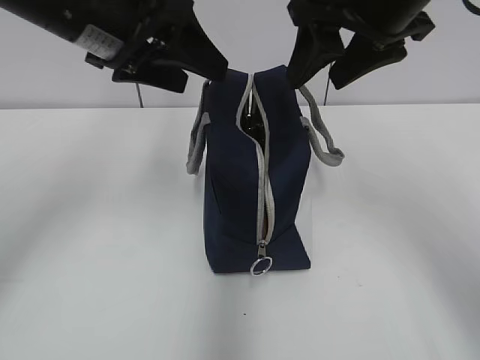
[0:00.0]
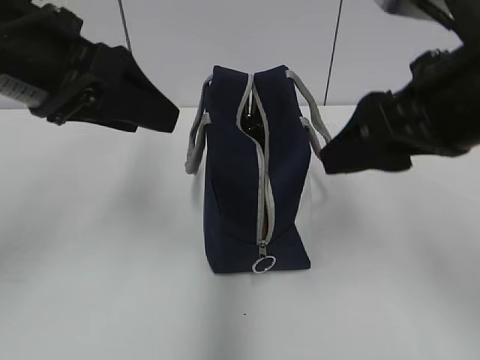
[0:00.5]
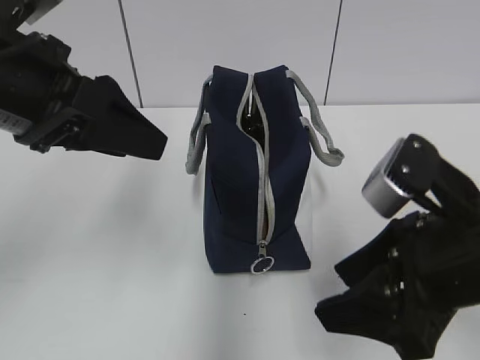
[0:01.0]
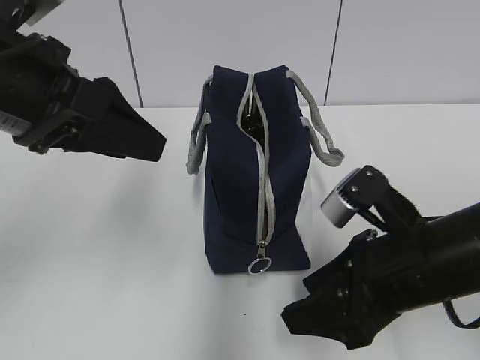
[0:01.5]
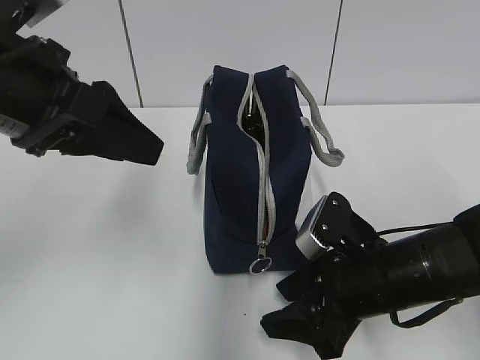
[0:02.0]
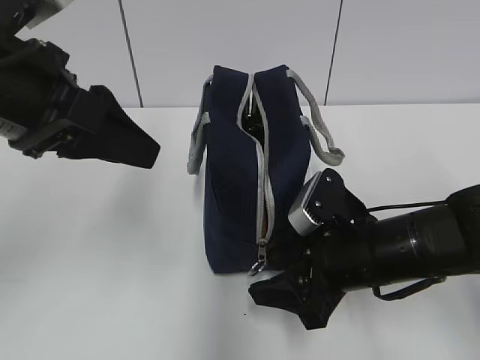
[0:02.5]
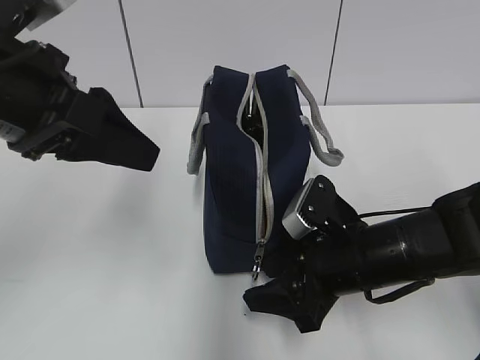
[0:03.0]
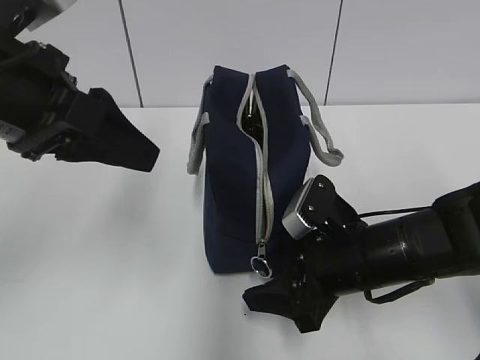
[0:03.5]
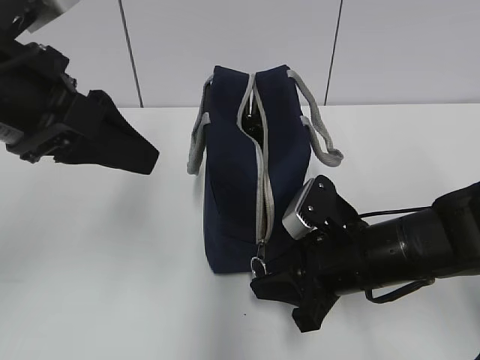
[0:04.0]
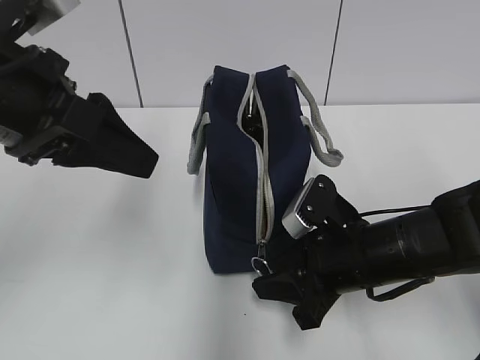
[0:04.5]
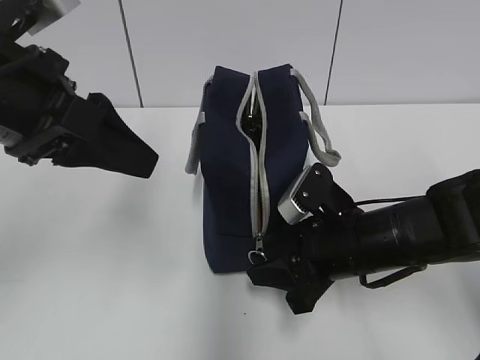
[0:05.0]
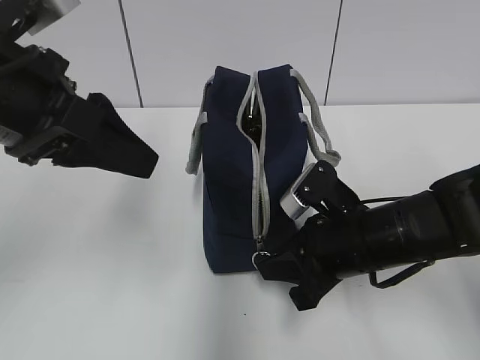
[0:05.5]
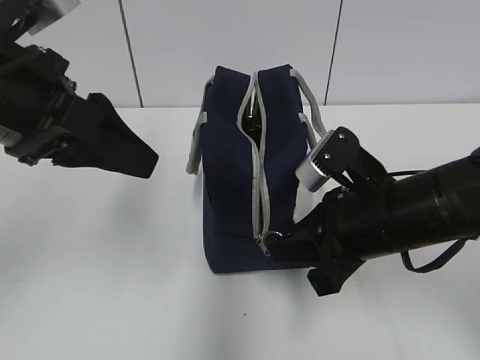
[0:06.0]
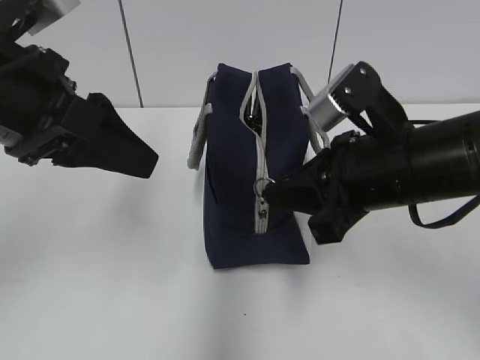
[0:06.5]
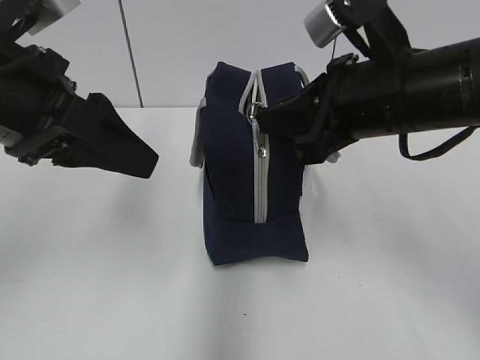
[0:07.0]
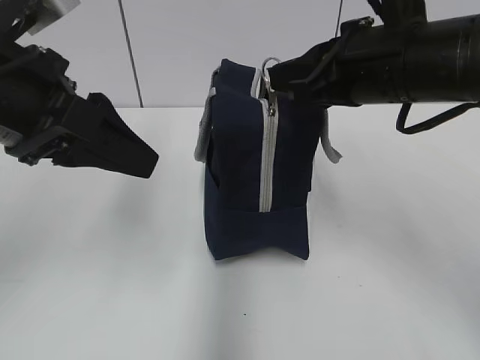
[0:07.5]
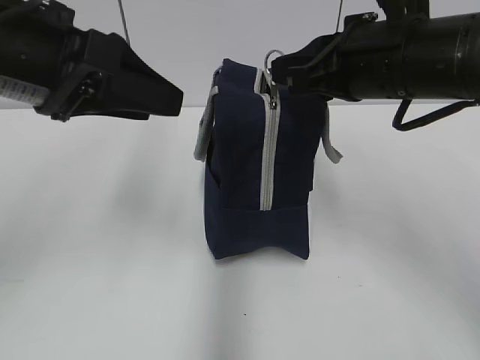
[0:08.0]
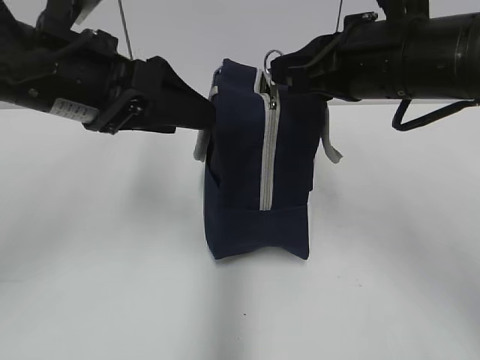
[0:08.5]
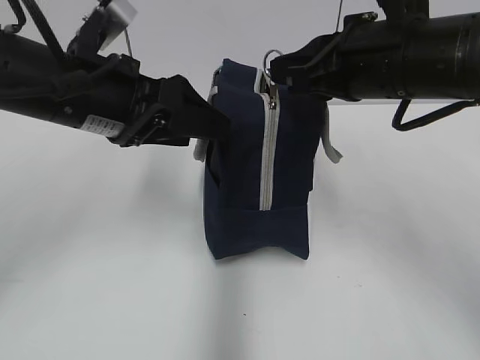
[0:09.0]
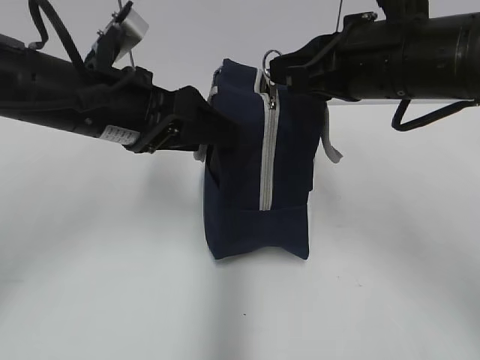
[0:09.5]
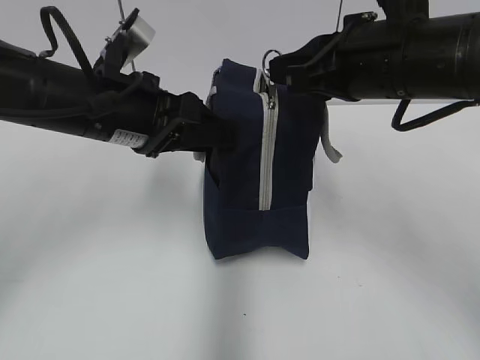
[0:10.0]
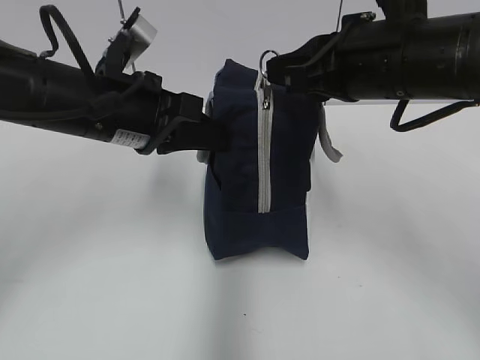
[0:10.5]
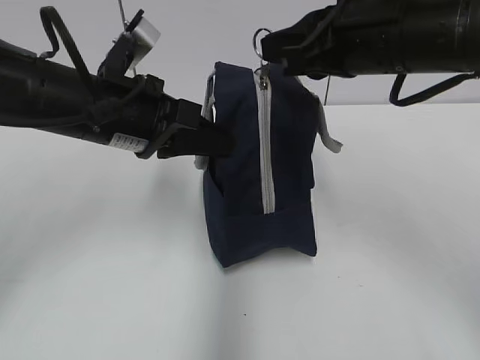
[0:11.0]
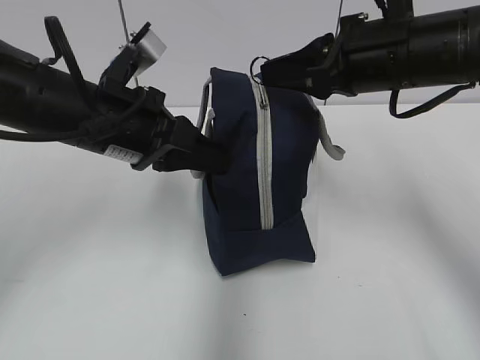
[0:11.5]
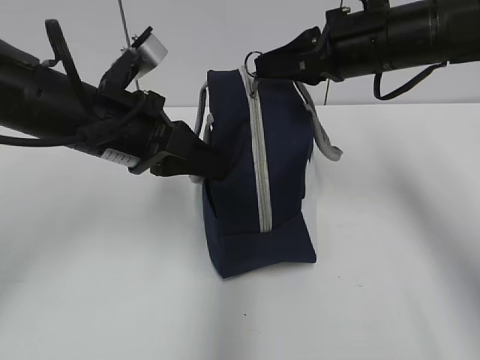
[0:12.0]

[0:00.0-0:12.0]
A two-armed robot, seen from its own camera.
0:00.0 to 0:02.0: The left gripper goes approximately 10 cm backward. The right gripper shifts approximately 25 cm downward and backward.
0:02.0 to 0:04.0: The right gripper closes up.
0:04.0 to 0:06.0: The right gripper moves upward, roughly 5 cm.
0:06.0 to 0:08.0: The right gripper goes some 10 cm upward.
0:08.0 to 0:10.0: The left gripper heads downward and forward, covering some 10 cm.
0:10.0 to 0:12.0: The left gripper closes up. The right gripper moves forward, about 10 cm.

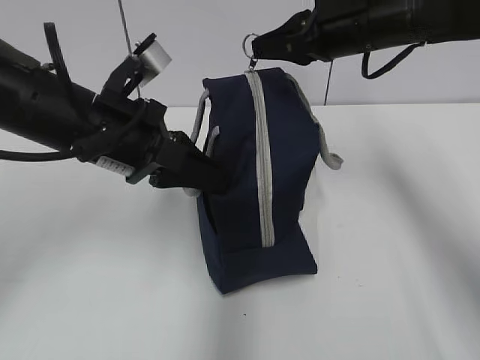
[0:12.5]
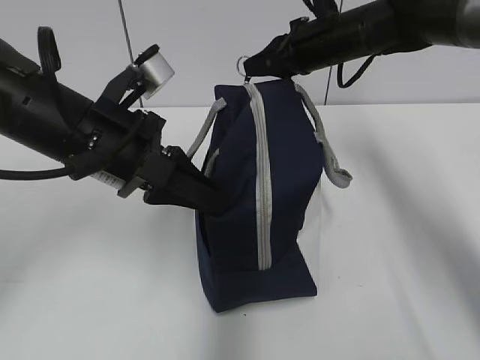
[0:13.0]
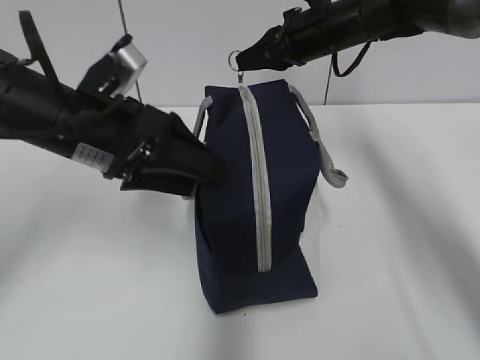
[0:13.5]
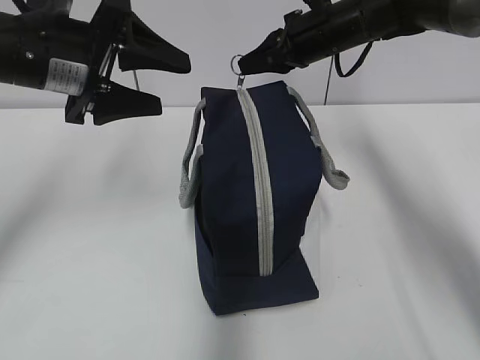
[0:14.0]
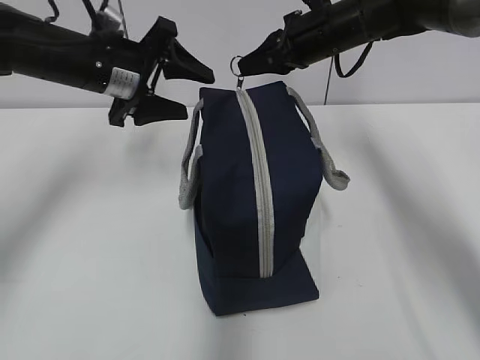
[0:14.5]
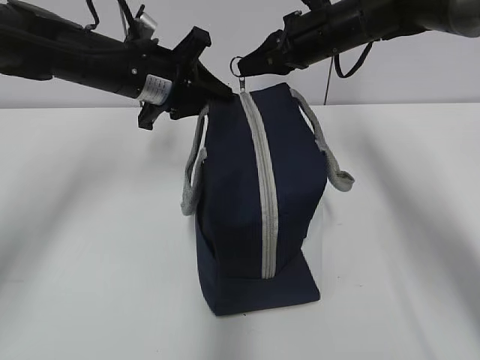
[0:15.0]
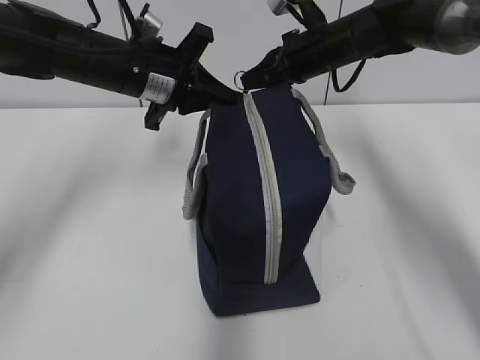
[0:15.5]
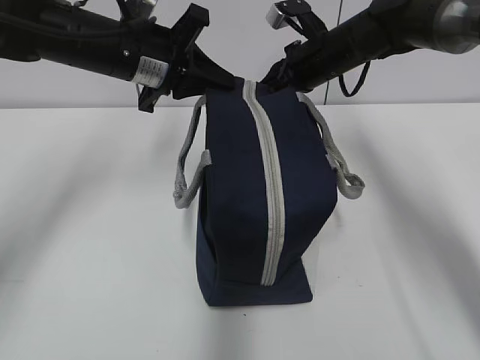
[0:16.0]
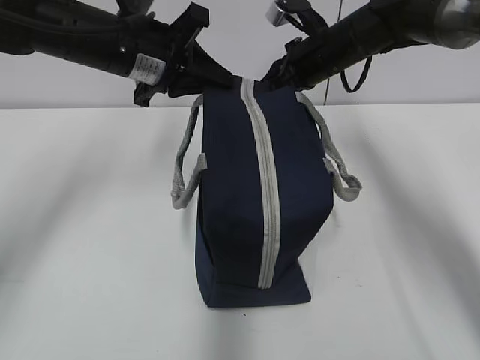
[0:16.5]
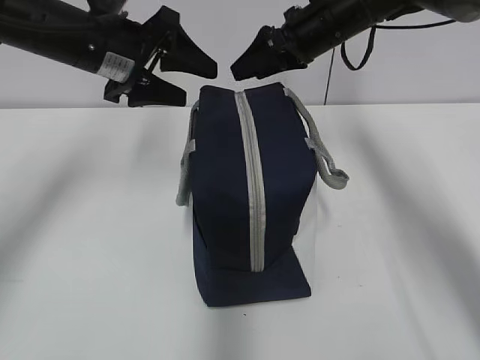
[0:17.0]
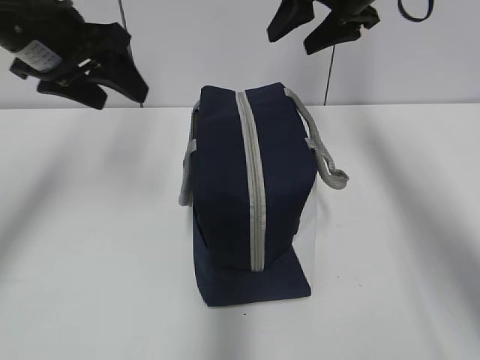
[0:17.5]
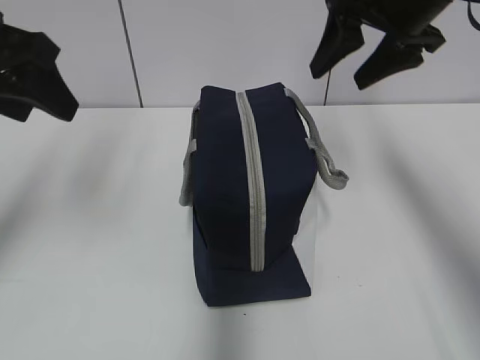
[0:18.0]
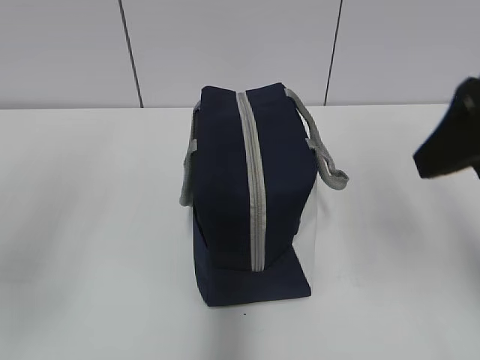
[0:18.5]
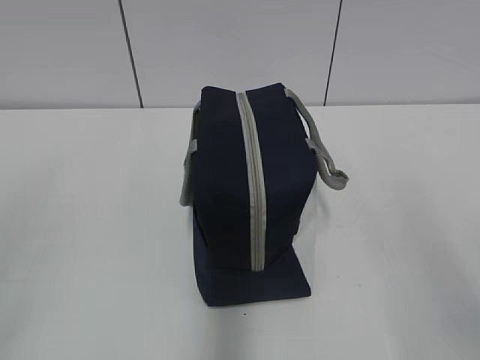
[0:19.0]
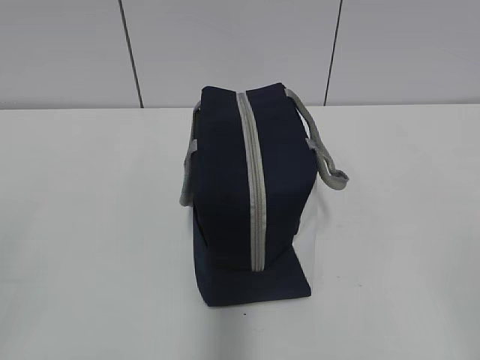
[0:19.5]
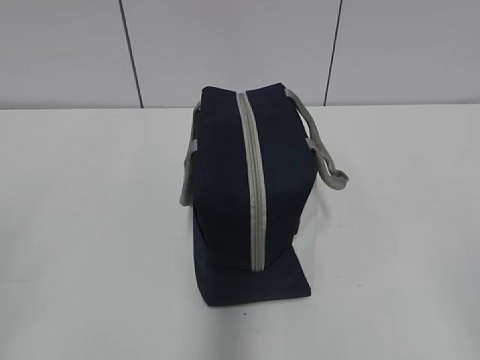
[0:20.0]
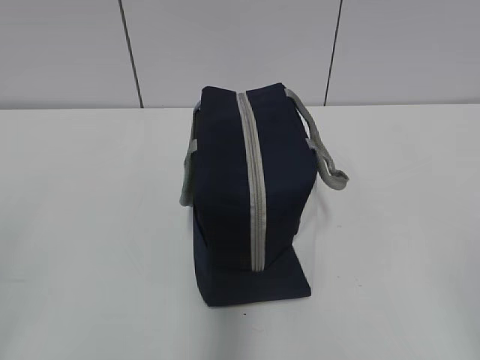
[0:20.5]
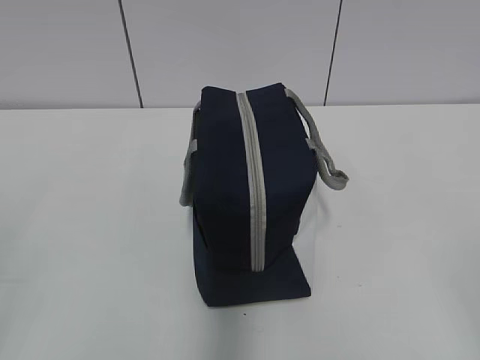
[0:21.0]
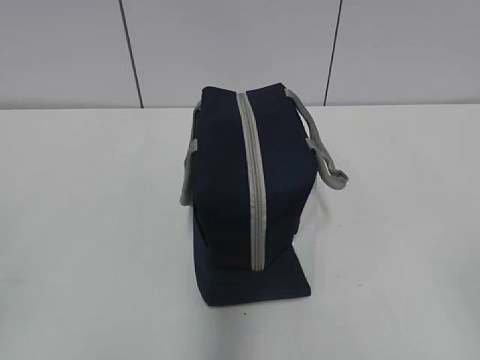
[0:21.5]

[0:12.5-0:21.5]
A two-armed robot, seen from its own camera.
0:12.5 to 0:14.5: The two grippers go about 10 cm forward. The left gripper opens up.
0:14.5 to 0:17.0: The left gripper closes, then reopens. Meanwhile the right gripper opens.
0:17.0 to 0:19.5: The right gripper shifts roughly 50 cm backward; the left gripper travels backward and to the left by approximately 40 cm.
